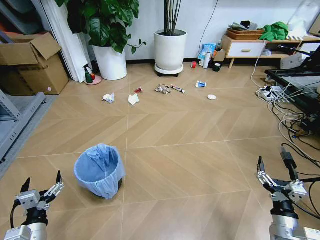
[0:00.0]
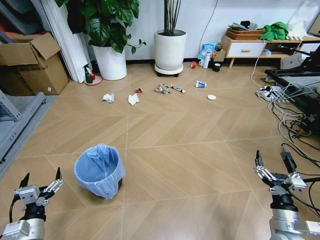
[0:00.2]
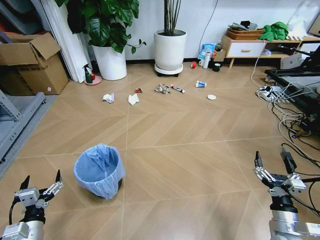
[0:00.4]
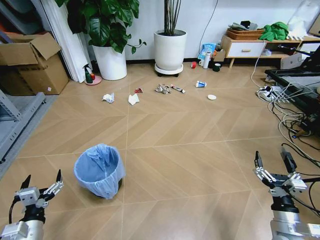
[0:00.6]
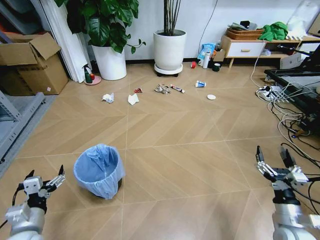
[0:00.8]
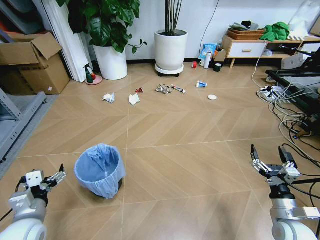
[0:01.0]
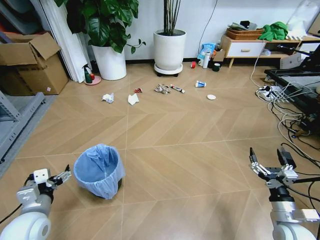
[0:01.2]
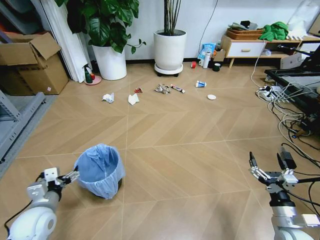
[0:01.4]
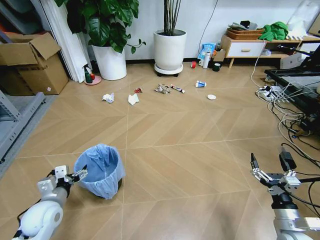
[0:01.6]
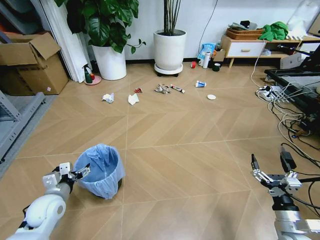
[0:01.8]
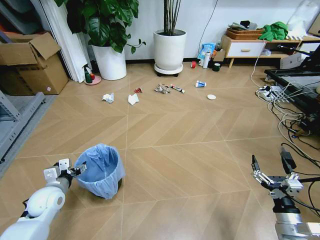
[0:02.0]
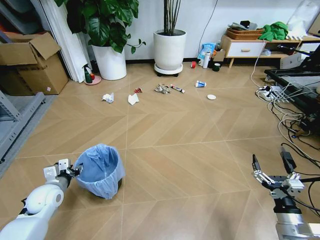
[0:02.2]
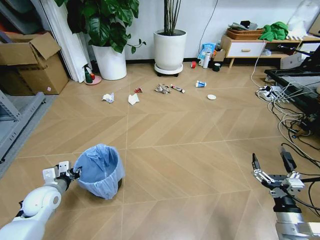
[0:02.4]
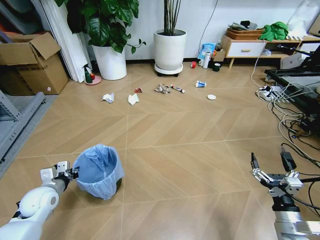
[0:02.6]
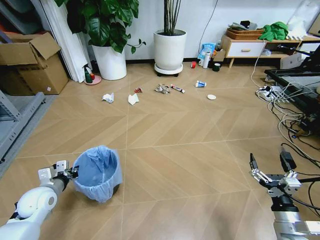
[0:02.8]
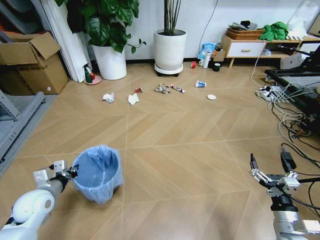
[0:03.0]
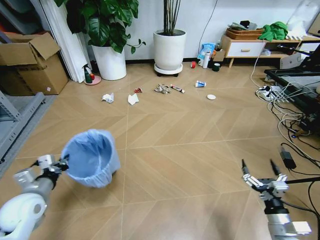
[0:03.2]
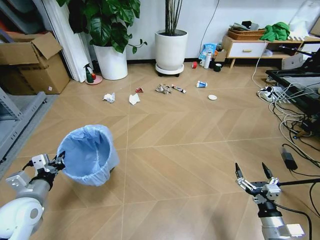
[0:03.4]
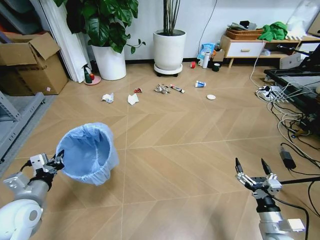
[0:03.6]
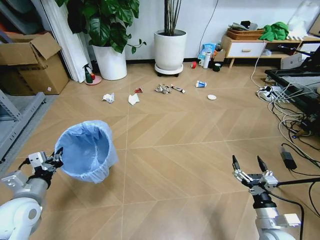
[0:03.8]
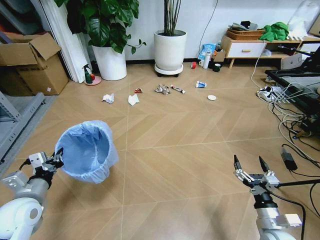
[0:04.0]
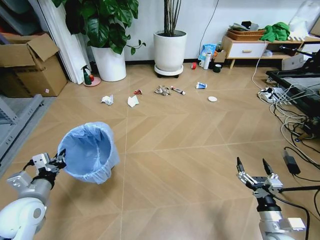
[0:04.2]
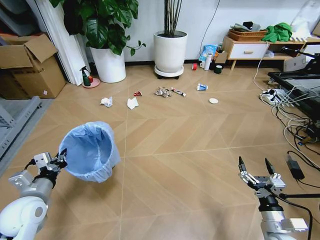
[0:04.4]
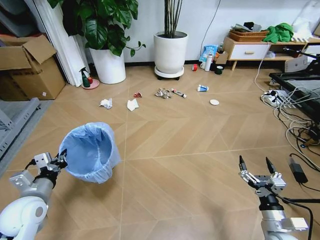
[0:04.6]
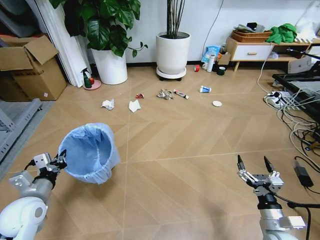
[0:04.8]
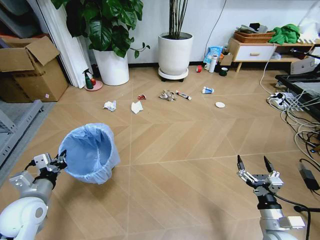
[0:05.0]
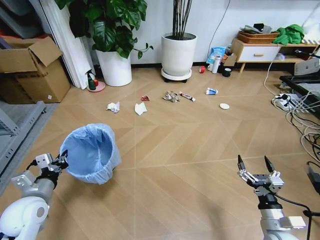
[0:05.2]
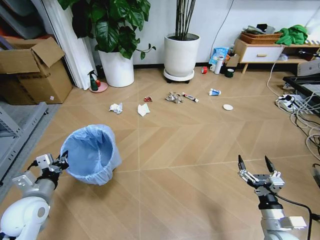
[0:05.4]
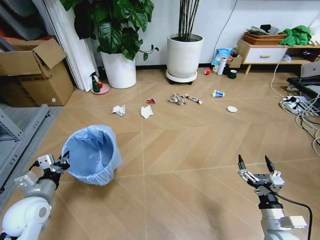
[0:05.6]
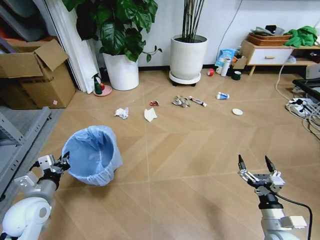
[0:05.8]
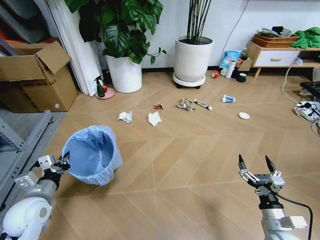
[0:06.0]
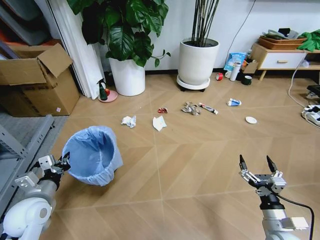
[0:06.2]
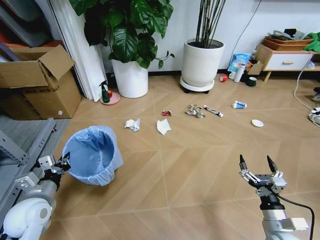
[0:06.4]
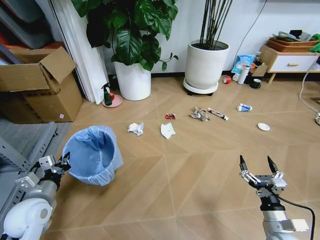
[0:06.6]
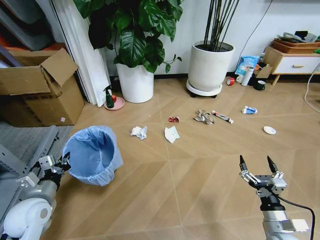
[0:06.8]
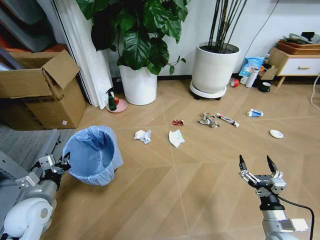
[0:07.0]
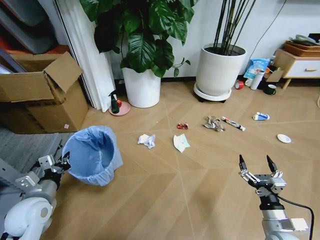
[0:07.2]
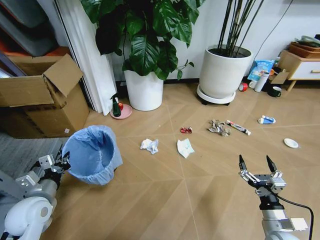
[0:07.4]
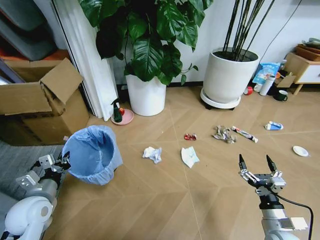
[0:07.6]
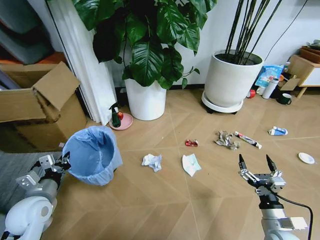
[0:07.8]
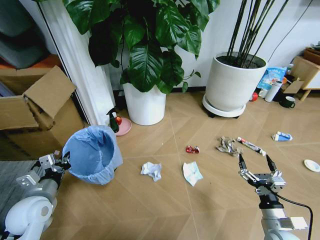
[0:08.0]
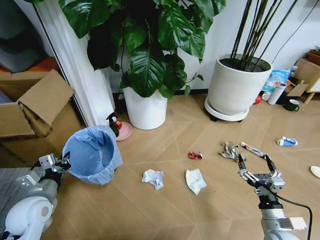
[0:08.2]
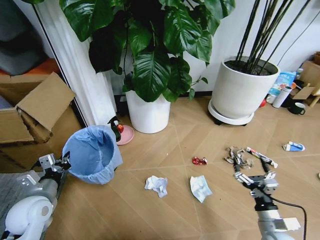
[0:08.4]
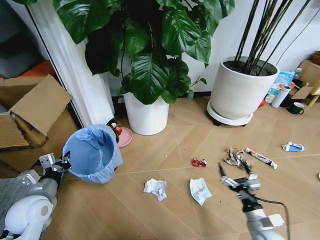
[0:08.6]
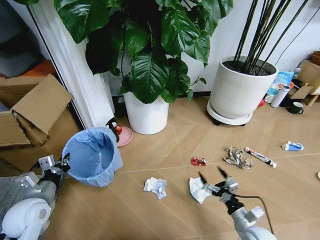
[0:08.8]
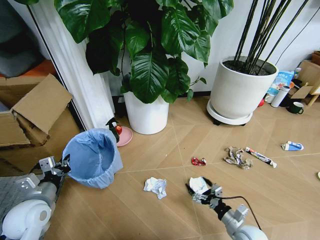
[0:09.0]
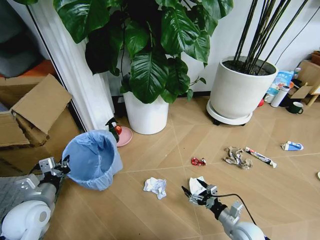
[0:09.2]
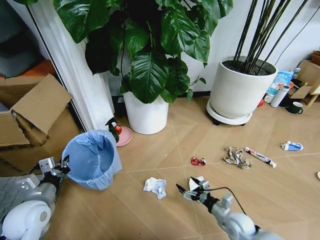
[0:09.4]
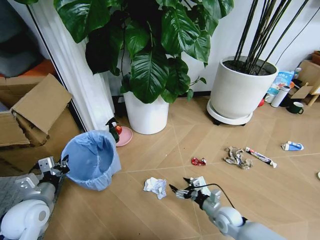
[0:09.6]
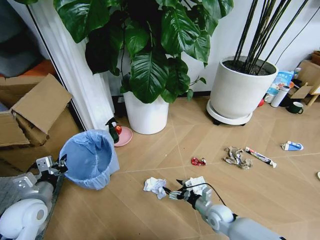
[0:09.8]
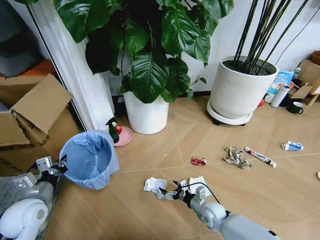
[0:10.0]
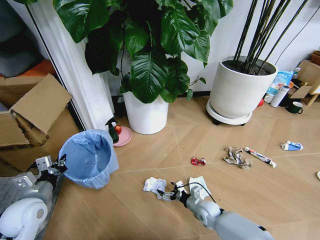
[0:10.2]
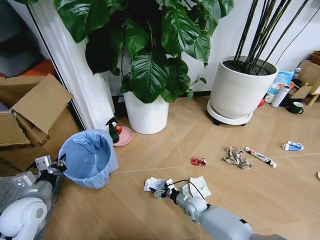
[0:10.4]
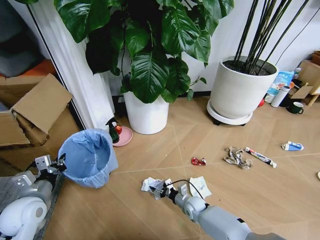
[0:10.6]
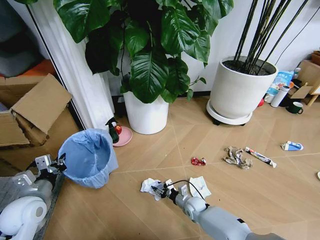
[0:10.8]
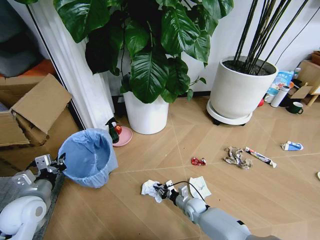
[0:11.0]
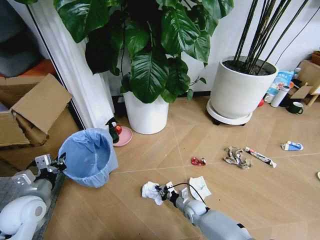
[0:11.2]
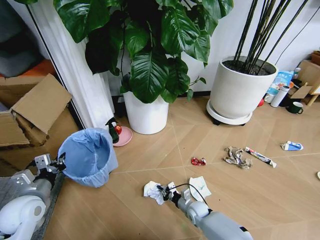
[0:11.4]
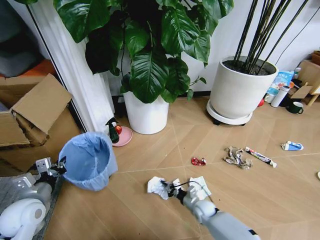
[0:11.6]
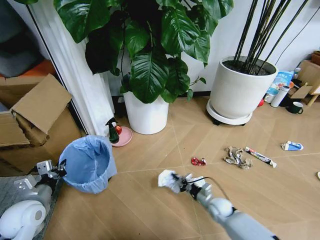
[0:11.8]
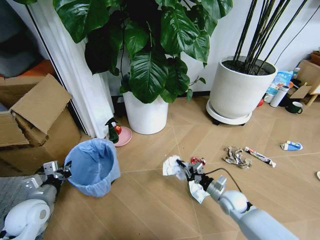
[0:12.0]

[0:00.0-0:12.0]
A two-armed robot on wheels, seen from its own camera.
Task of the whole recording: Pick up the trash bin and place the garbage on the floor into it.
0:01.6 to 0:03.0: The left gripper closes.
0:03.0 to 0:04.4: The left gripper changes place by about 5 cm.
0:07.6 to 0:09.0: The right gripper is displaced downward by roughly 10 cm.
0:09.0 to 0:10.4: The right gripper travels to the left, forward and downward by roughly 25 cm.
0:10.4 to 0:12.0: The right gripper travels to the right and upward by approximately 15 cm, and closes up.

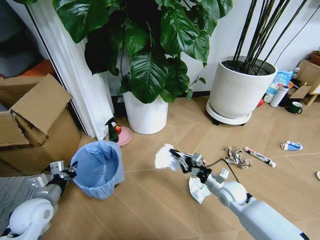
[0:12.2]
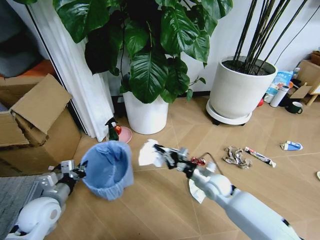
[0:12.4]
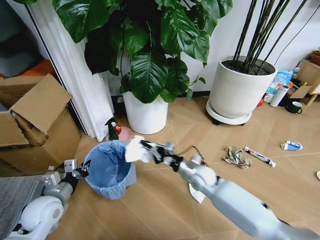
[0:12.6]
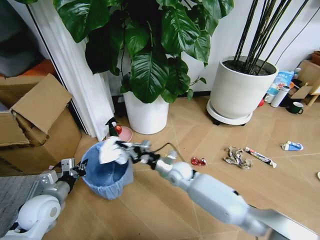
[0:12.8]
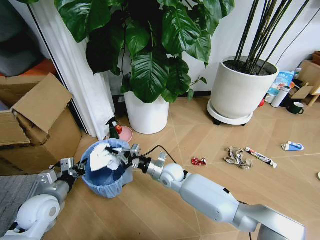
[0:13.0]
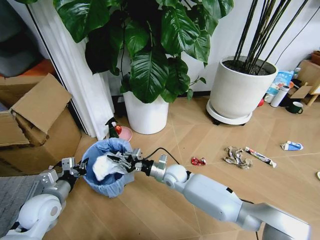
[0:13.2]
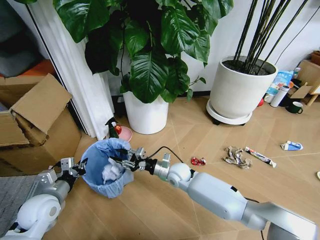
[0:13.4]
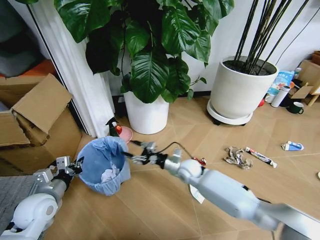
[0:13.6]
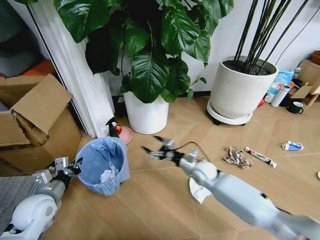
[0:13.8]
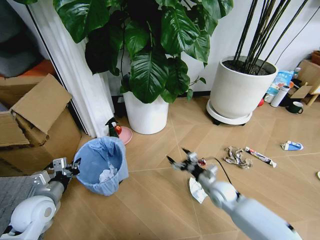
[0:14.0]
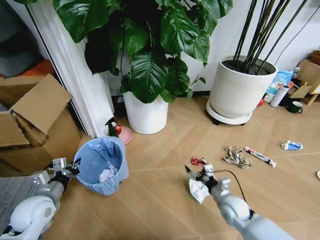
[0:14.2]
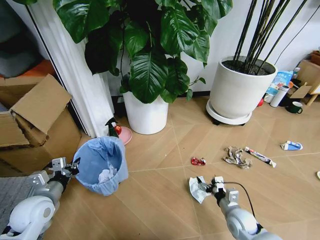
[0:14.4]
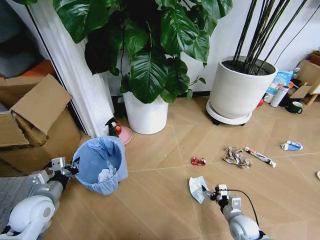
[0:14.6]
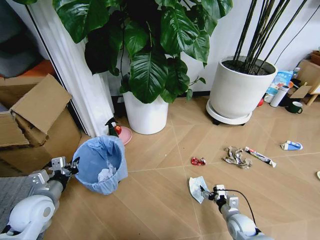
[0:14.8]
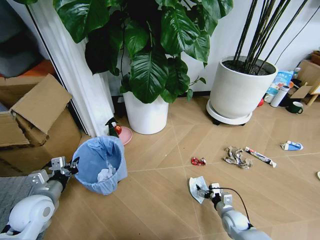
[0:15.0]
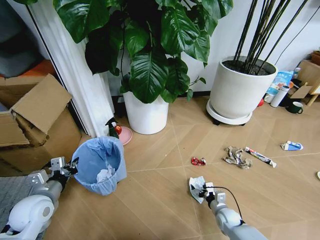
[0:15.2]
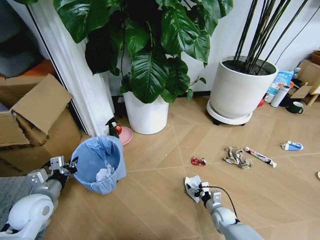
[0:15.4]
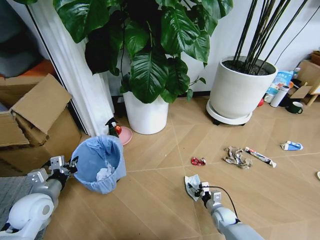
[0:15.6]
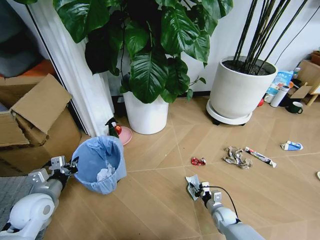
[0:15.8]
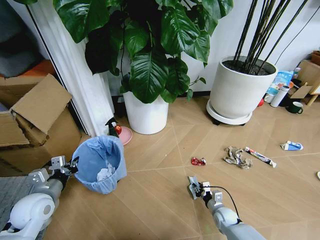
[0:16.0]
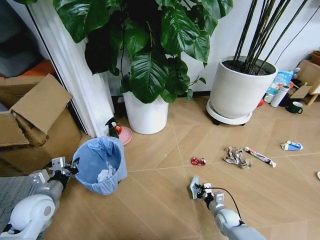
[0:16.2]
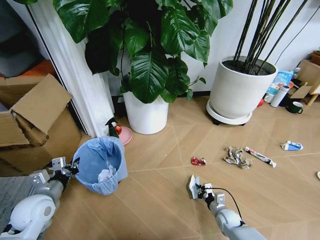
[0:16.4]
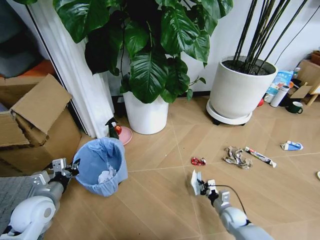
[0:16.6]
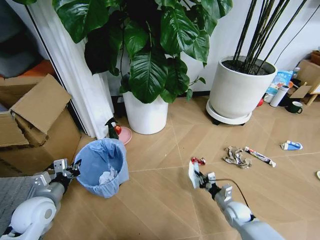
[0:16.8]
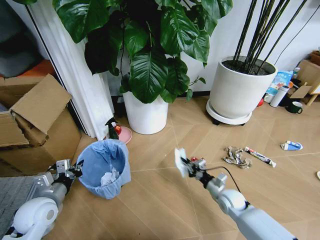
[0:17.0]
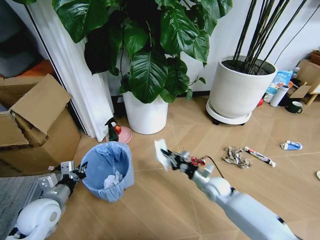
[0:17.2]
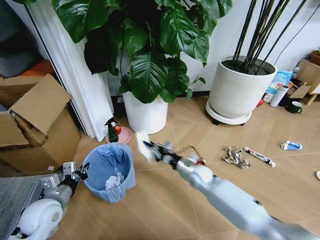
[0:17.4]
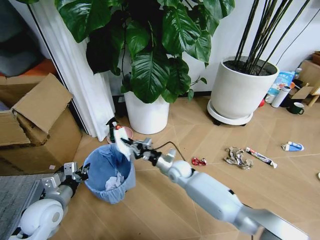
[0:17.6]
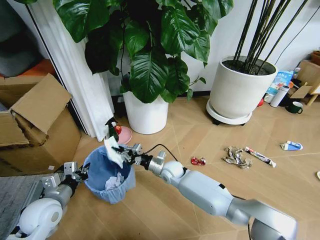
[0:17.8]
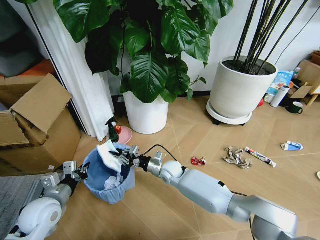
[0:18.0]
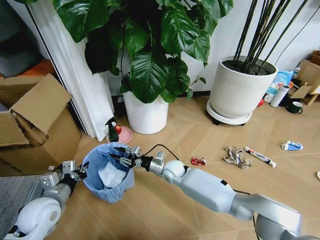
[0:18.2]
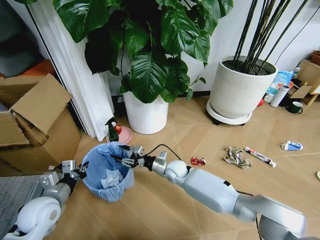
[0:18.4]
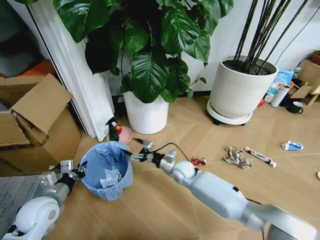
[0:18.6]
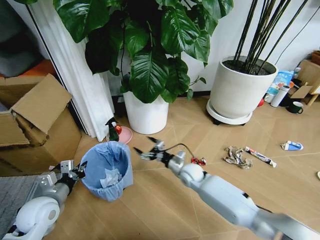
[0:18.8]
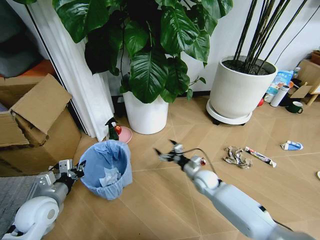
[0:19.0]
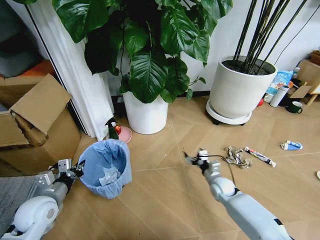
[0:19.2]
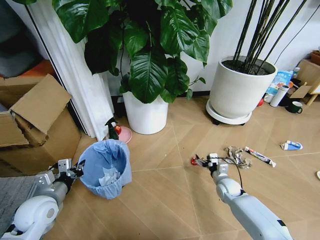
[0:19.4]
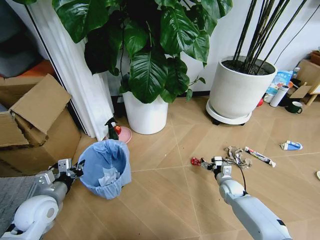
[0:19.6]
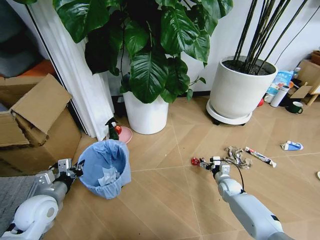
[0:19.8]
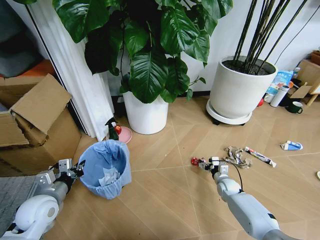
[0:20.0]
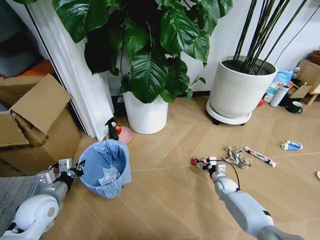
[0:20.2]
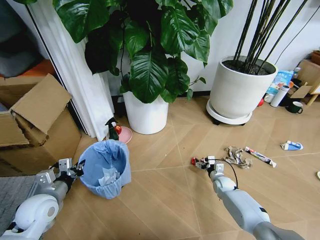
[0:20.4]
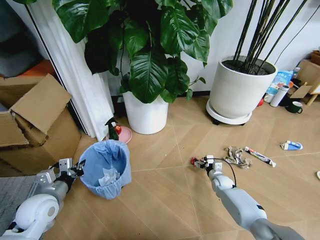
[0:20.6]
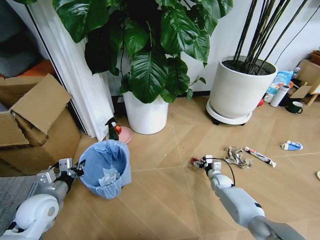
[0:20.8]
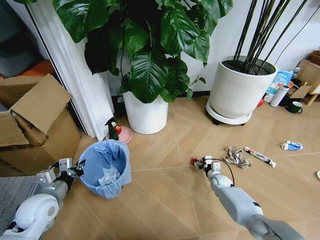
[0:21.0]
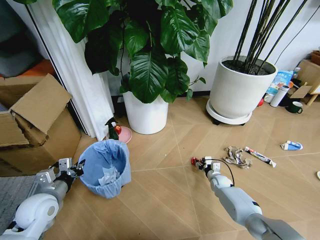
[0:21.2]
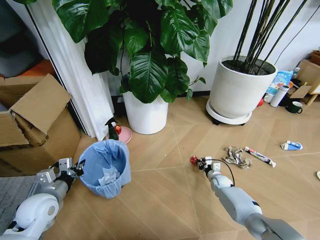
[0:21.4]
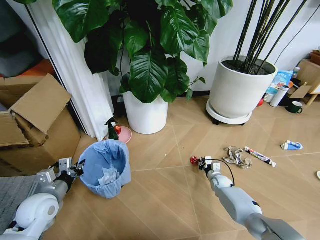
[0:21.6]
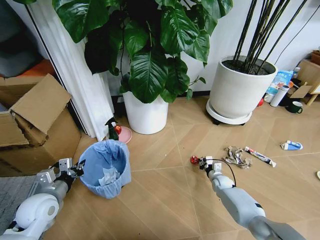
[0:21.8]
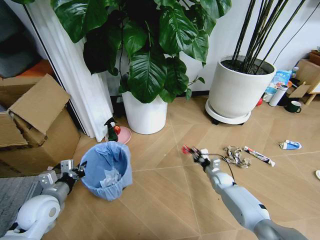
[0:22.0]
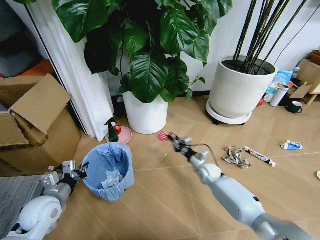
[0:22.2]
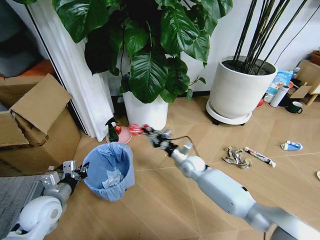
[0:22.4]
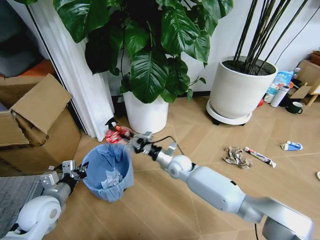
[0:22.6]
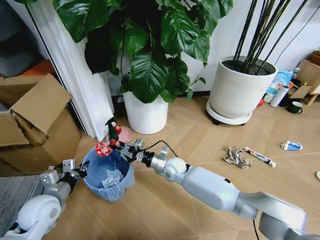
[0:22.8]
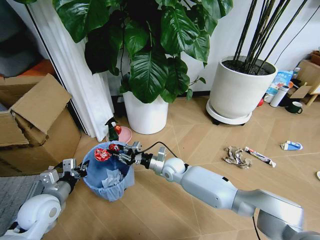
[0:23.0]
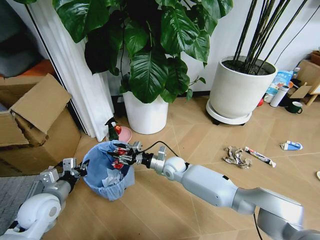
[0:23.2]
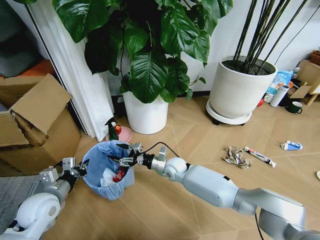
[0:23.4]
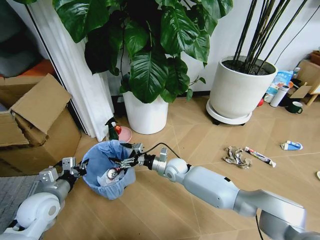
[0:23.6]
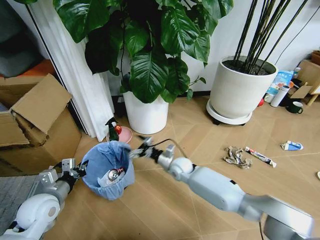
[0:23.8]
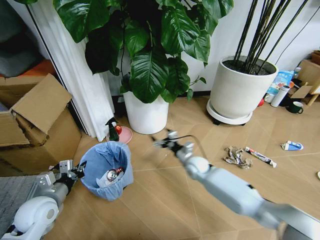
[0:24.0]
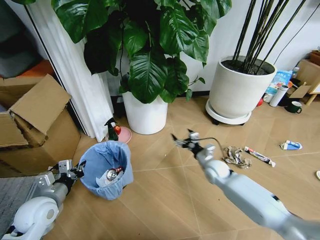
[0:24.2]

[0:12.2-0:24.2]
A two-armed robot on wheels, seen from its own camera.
Task of the whole recording: Pick up the trash bin and place the garbage on the floor into it.
0:12.2 to 0:13.8: The right gripper is displaced to the left and forward by about 15 cm, and opens its fingers.
0:13.8 to 0:15.2: The right gripper moves downward, backward and to the right, approximately 25 cm.
0:15.2 to 0:16.6: The right gripper closes.
0:16.6 to 0:18.2: The right gripper moves to the left, forward and upward, about 35 cm.
0:18.2 to 0:19.8: The right gripper travels to the right and downward by approximately 30 cm, and opens its fingers.
0:19.8 to 0:21.2: The right gripper moves roughly 5 cm, and closes.
0:21.2 to 0:22.6: The right gripper moves to the left and upward, some 30 cm.
0:22.6 to 0:24.2: The right gripper moves to the right, some 15 cm, and opens.
